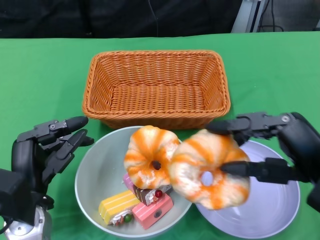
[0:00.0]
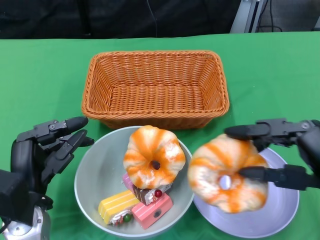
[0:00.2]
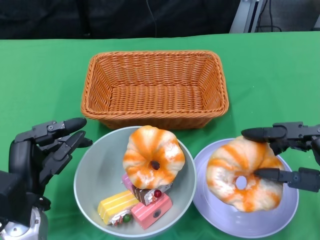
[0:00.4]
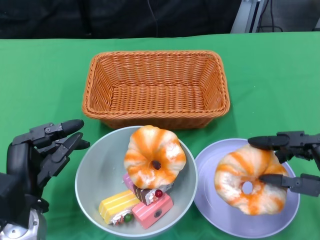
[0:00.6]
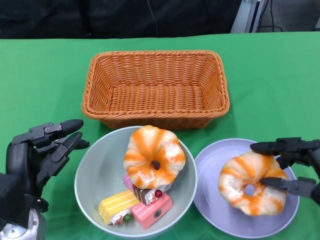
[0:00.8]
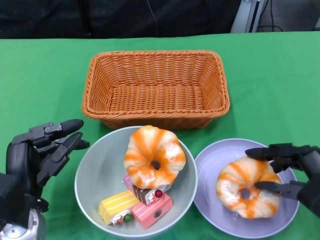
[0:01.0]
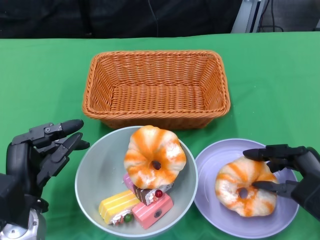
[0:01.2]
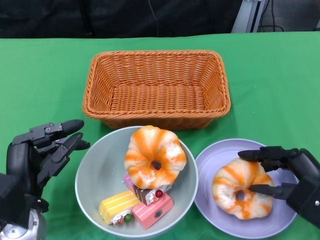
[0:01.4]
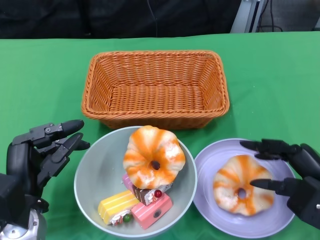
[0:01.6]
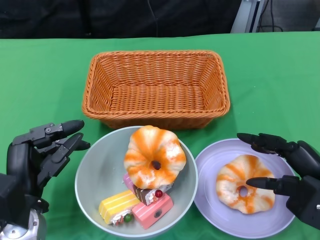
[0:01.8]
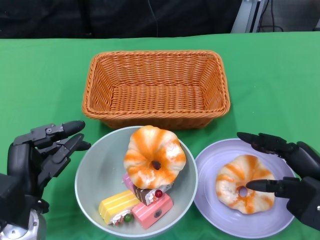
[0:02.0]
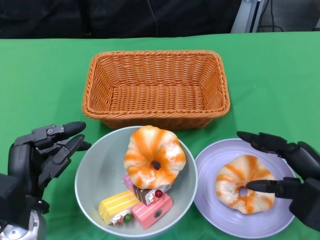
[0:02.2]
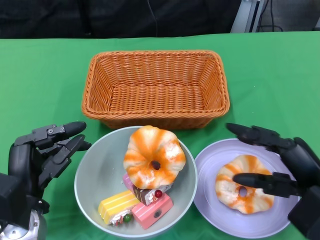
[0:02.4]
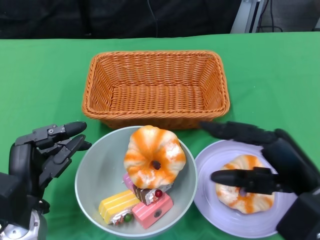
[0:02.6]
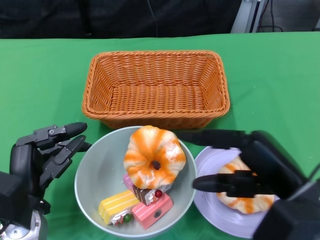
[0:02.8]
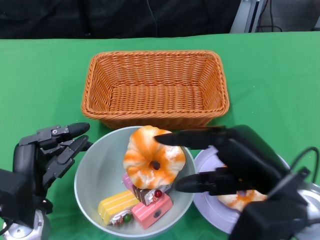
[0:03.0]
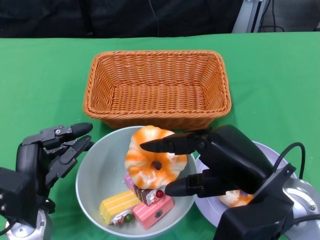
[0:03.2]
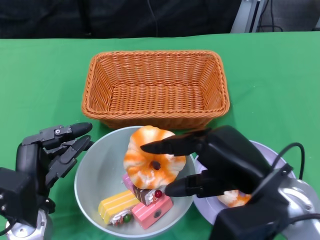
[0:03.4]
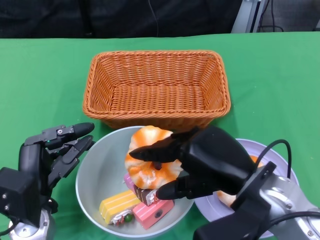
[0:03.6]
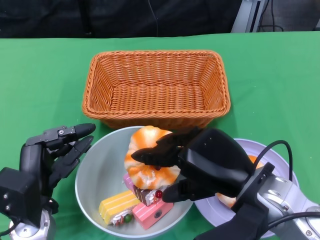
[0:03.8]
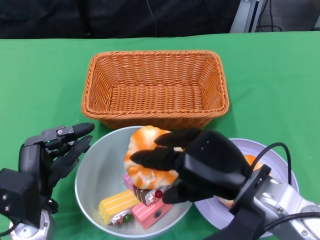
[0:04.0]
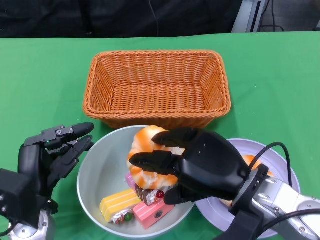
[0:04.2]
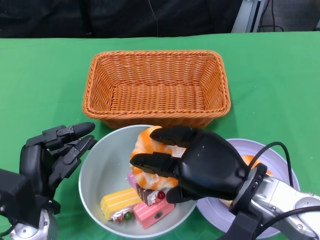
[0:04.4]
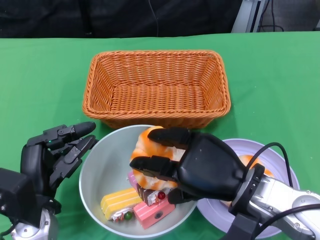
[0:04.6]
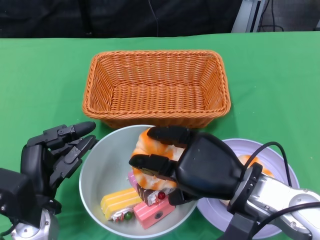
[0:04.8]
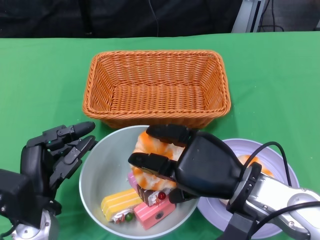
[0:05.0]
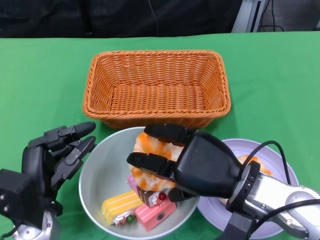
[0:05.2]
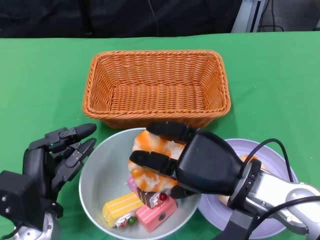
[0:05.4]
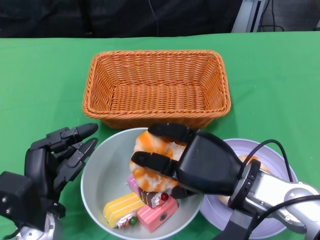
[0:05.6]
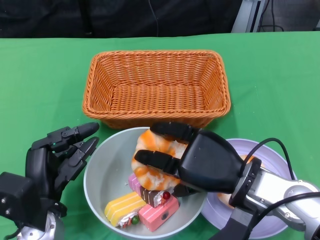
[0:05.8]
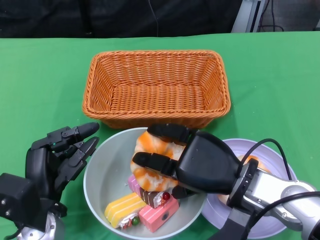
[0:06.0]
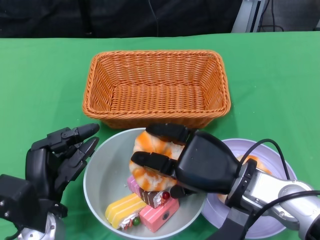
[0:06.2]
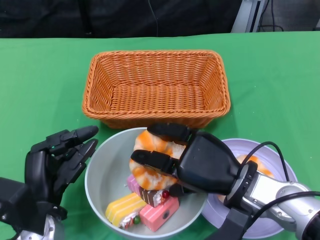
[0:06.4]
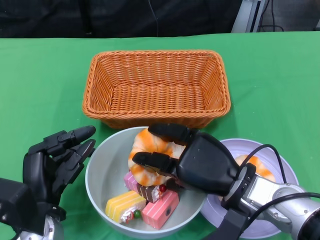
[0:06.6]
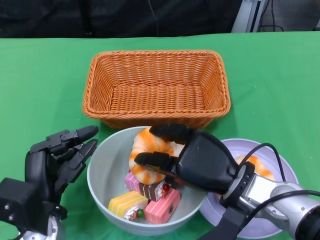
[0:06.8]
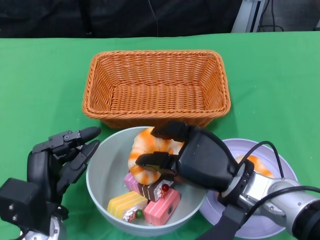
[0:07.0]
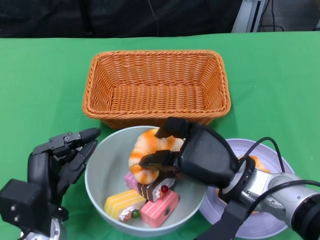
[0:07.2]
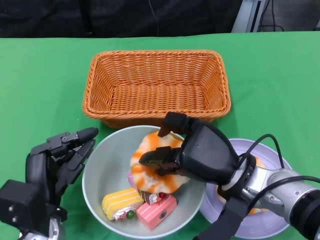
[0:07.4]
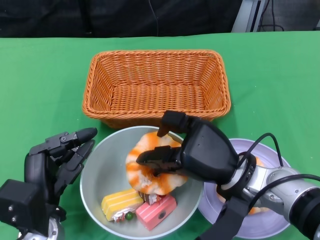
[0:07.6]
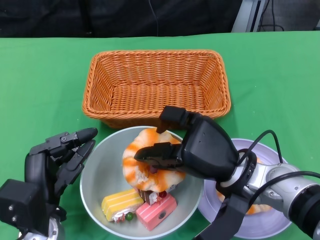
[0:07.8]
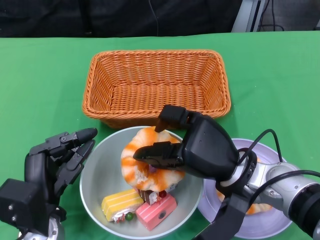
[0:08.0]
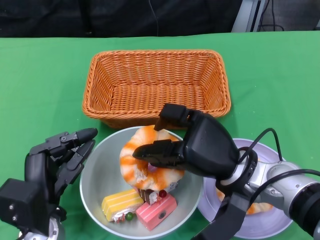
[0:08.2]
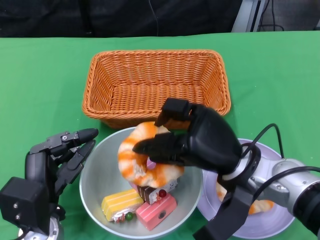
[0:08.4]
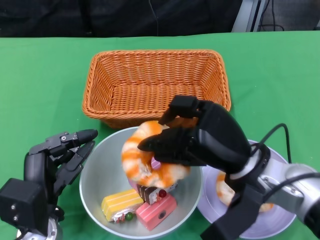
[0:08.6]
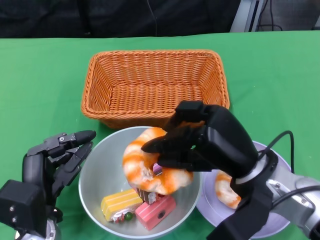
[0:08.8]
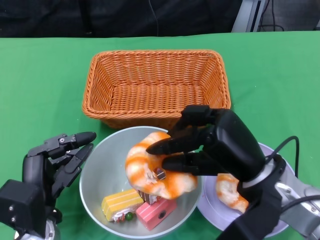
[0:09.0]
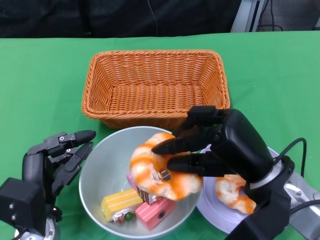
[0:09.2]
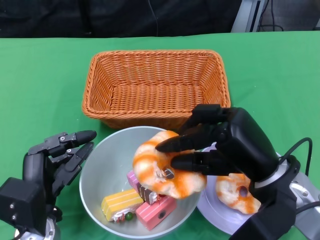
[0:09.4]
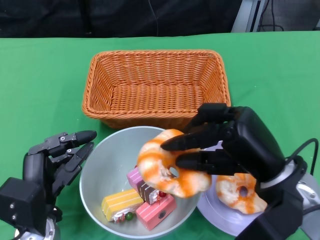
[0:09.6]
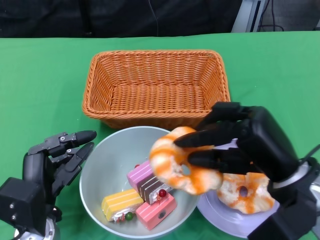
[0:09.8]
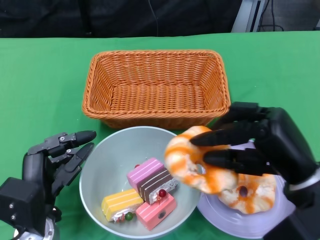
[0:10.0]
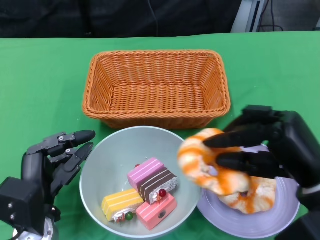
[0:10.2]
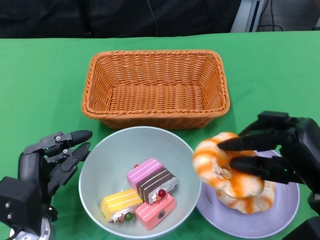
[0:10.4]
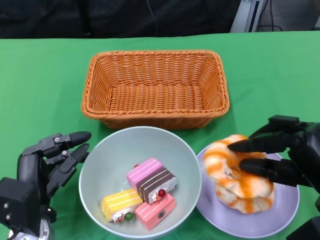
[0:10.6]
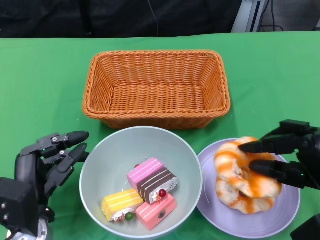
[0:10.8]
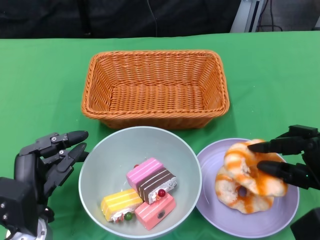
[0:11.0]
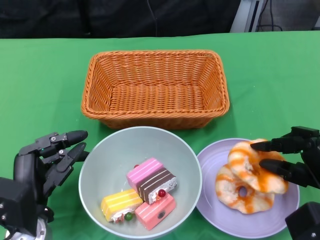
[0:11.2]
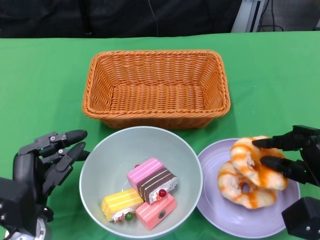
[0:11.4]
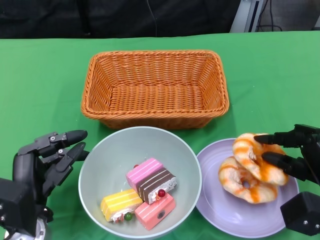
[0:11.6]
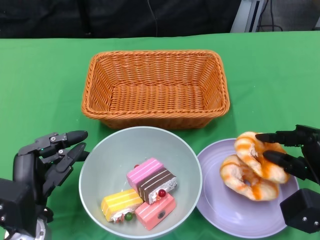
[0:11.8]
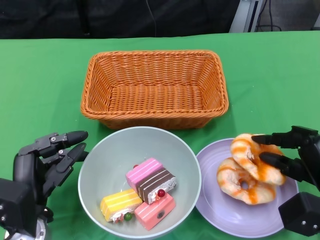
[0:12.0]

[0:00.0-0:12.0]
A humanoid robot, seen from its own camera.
Step, 0:00.0 to 0:02.4: Pick up the bread with the right gripper and place it on the plate.
0:00.0 to 0:01.6: The right hand goes approximately 10 cm downward.
0:01.6 to 0:03.0: The right hand shifts some 10 cm to the left and upward.
0:03.0 to 0:04.4: The right hand changes place by approximately 5 cm.
0:04.4 to 0:06.0: The hands make only small movements.
0:07.6 to 0:09.0: The right hand changes place by approximately 5 cm.
0:09.0 to 0:10.4: The right hand moves to the right, roughly 10 cm.
0:10.4 to 0:12.0: The right hand travels downward by some 5 cm.

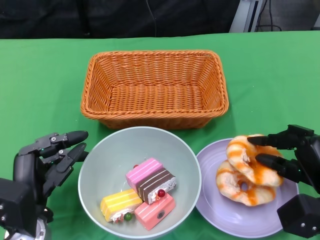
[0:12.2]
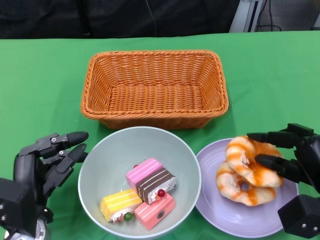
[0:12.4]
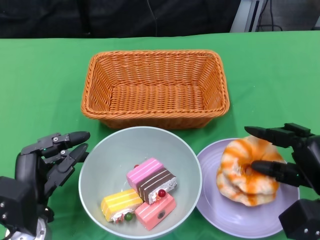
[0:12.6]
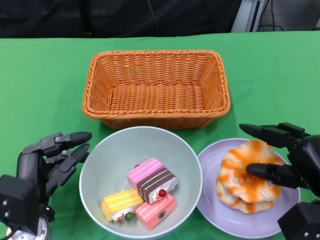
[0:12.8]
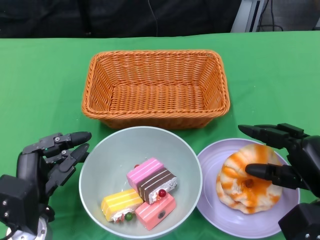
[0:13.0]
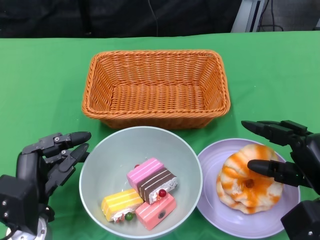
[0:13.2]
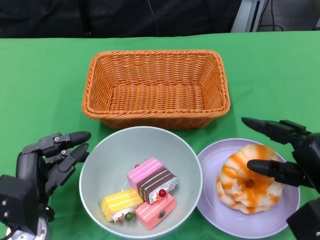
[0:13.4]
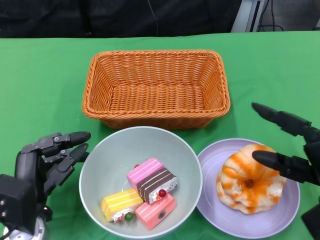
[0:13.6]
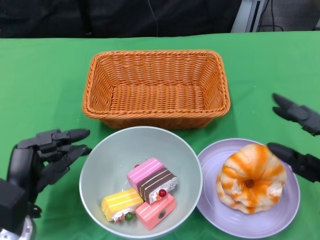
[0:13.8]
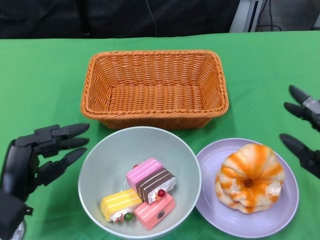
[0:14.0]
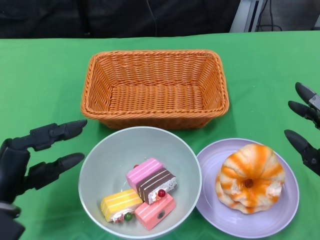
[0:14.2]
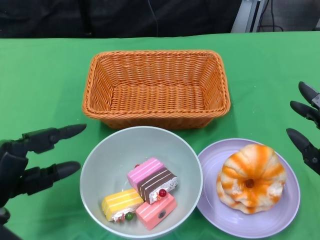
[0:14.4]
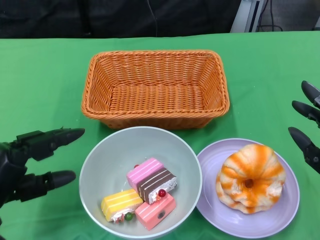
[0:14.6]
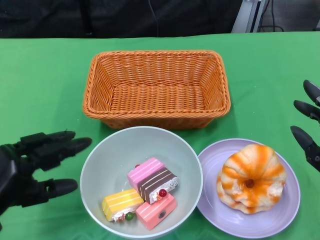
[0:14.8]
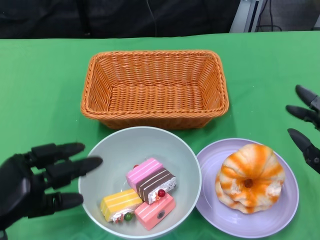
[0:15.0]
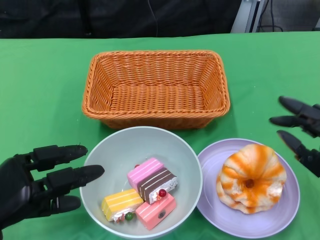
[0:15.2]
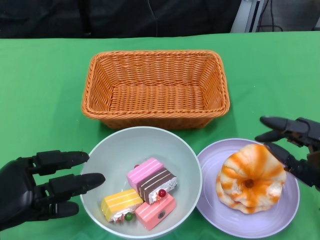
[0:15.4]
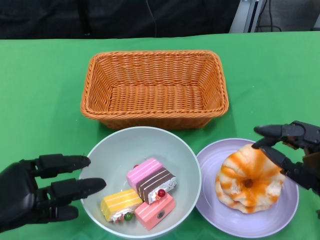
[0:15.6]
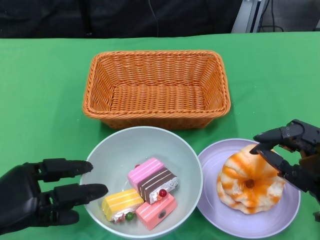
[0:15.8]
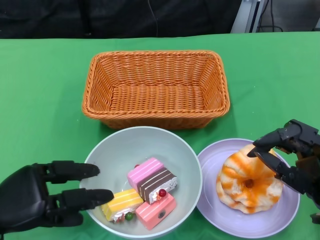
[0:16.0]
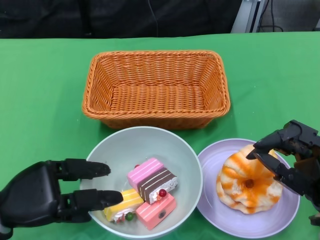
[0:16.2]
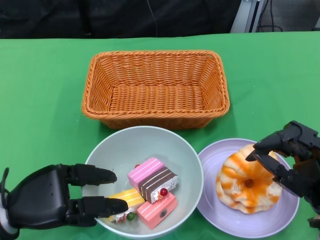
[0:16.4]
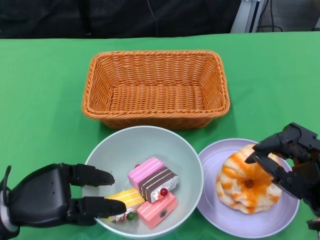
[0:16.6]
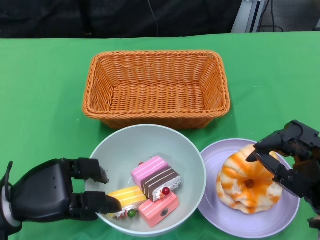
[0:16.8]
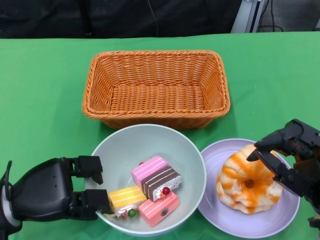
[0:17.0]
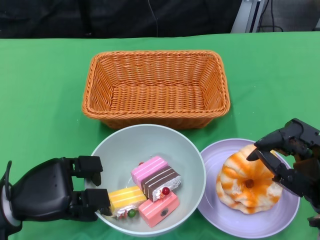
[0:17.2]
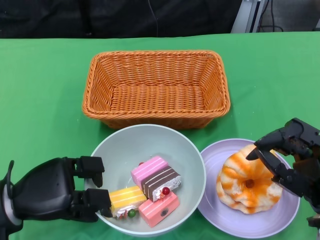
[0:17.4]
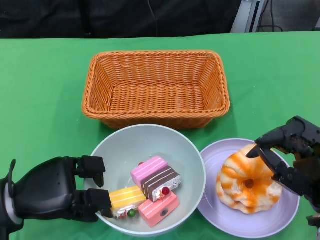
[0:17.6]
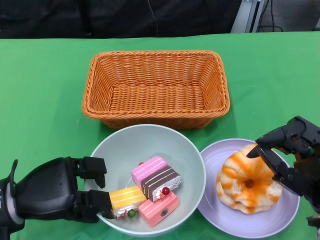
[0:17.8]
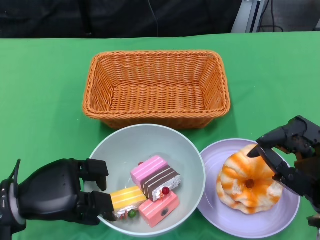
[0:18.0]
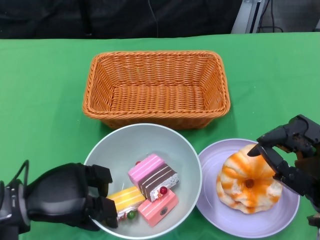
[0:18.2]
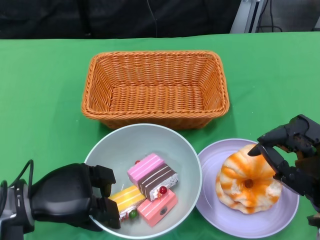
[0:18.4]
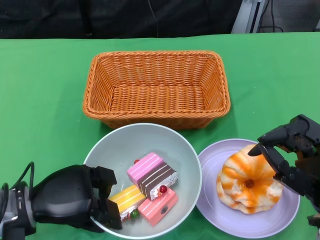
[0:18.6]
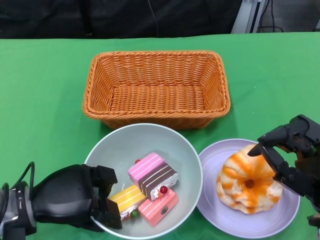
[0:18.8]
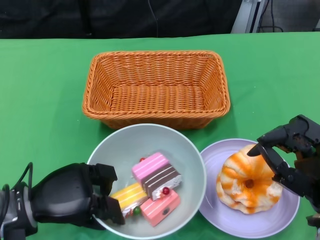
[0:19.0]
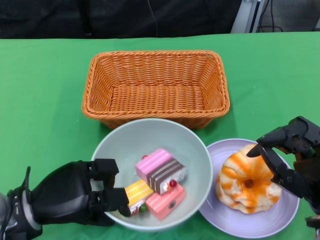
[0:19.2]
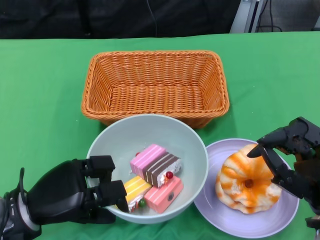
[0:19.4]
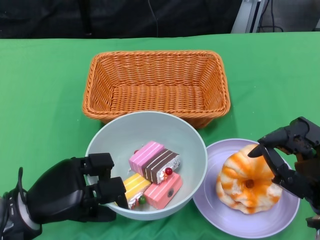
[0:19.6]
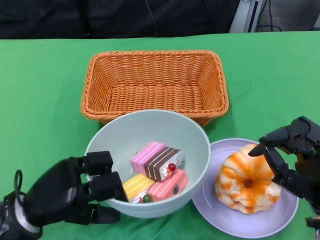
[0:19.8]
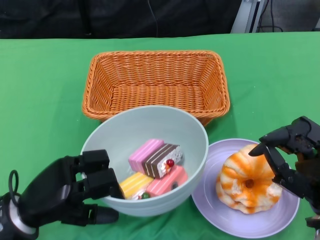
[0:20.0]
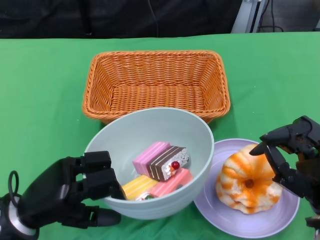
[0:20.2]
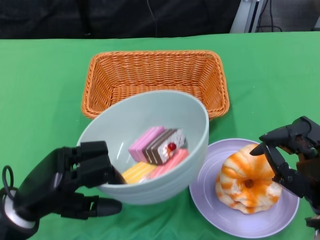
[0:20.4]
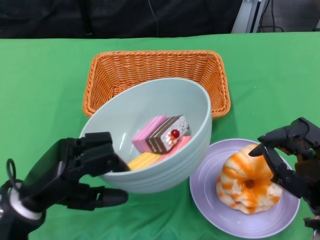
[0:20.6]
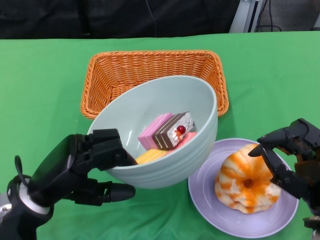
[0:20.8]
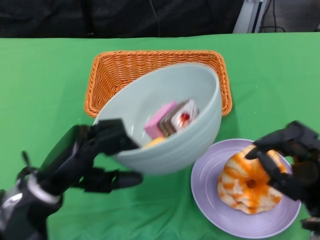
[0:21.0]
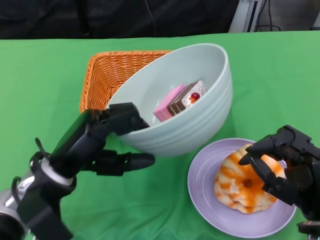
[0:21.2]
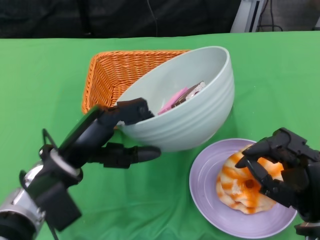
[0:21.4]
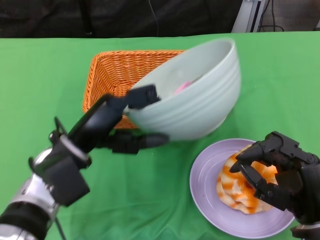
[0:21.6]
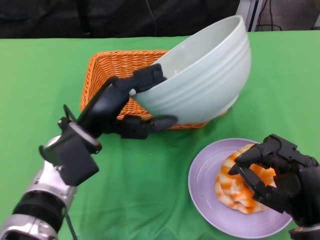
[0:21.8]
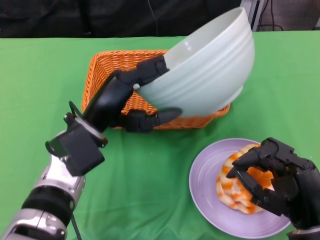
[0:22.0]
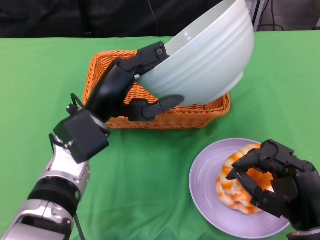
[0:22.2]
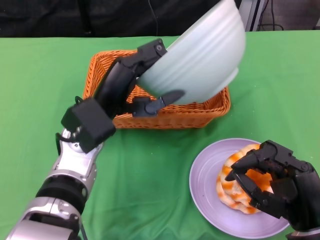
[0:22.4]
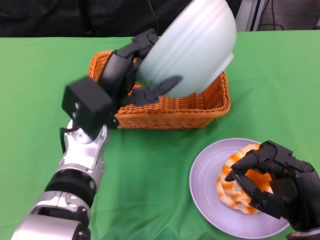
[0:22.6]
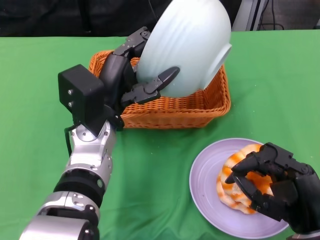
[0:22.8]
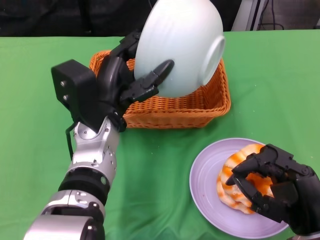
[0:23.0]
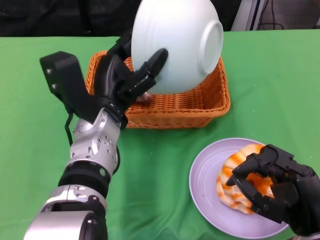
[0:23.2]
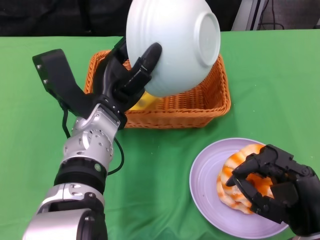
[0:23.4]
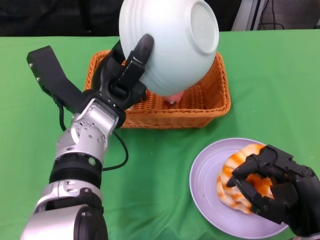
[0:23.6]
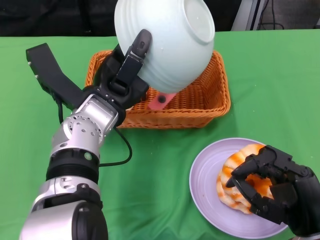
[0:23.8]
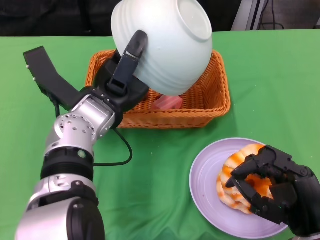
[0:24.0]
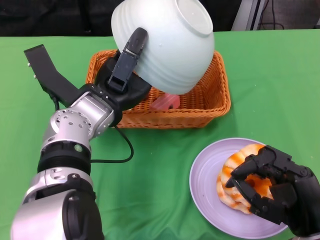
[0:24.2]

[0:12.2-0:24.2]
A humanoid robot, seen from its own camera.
Step, 0:14.0 to 0:18.6: Grasp the bowl with the left gripper.
Step, 0:19.0 to 0:24.0: Pour the cake into the basket with the left gripper.
0:13.8 to 0:15.2: The left hand goes approximately 5 cm to the left.
0:16.6 to 0:18.2: The hands stay close to where they were, moving slightly.
0:19.8 to 0:21.2: The left hand heads upward, covering approximately 5 cm.
0:21.2 to 0:22.6: The left hand heads forward and to the right, covering some 10 cm.
